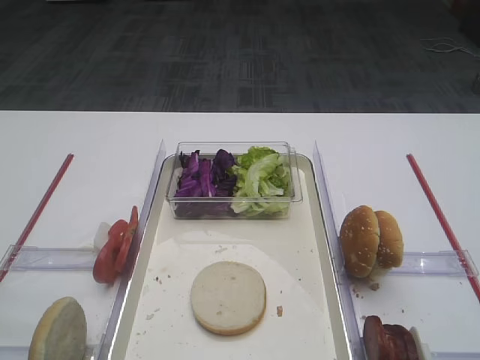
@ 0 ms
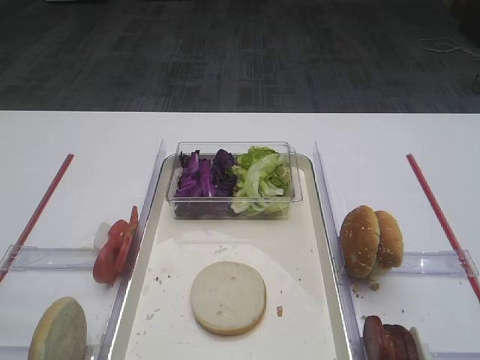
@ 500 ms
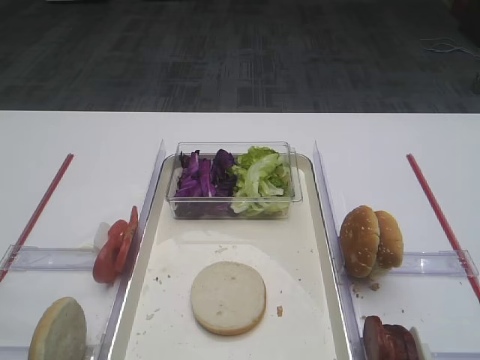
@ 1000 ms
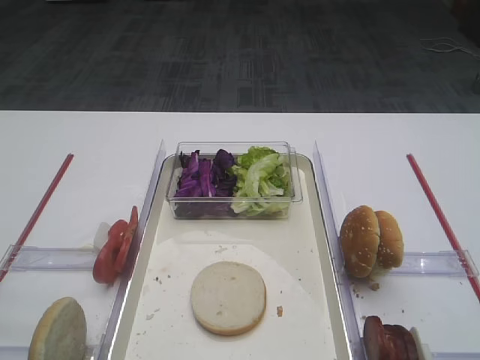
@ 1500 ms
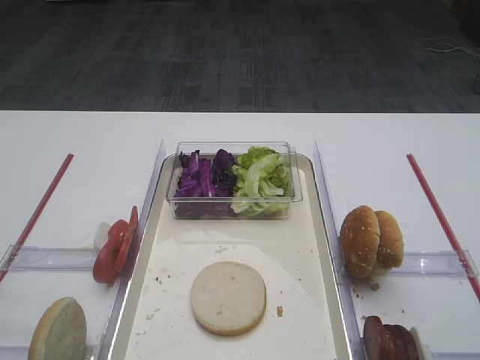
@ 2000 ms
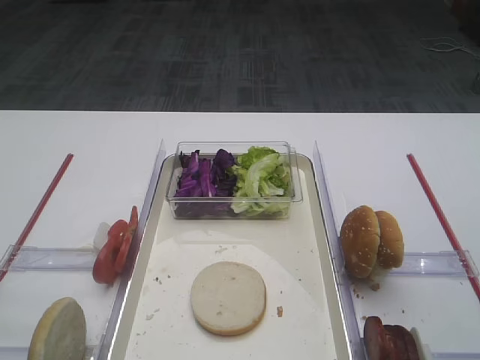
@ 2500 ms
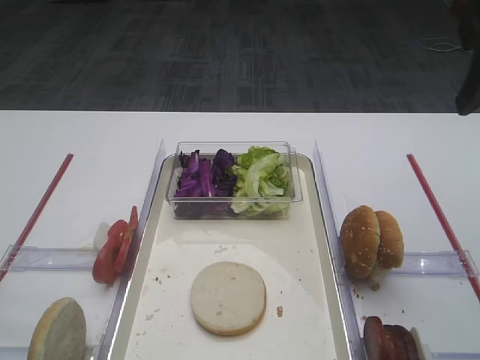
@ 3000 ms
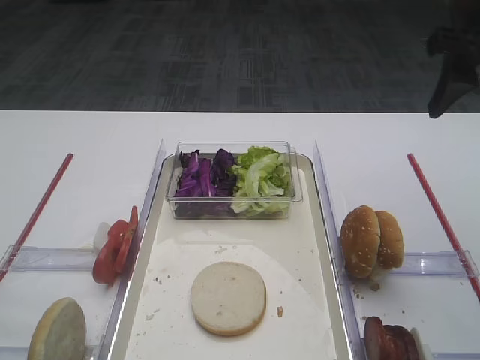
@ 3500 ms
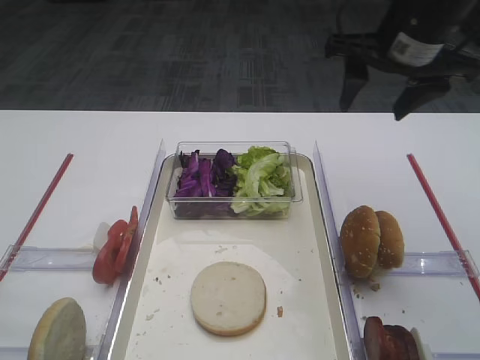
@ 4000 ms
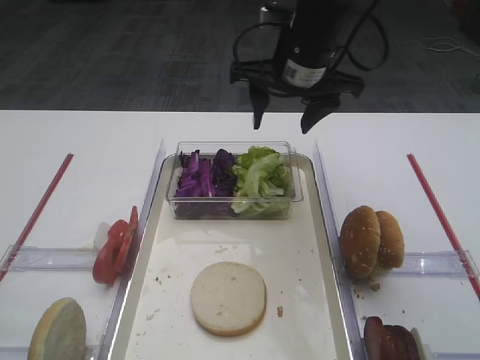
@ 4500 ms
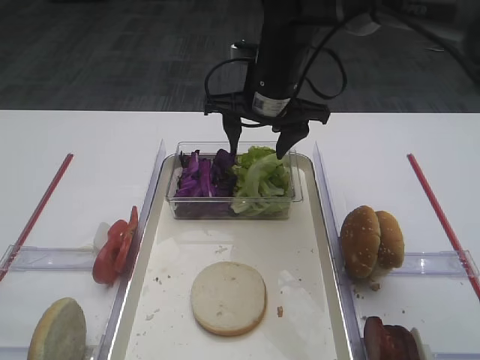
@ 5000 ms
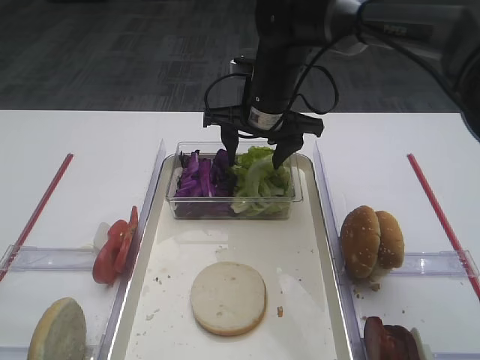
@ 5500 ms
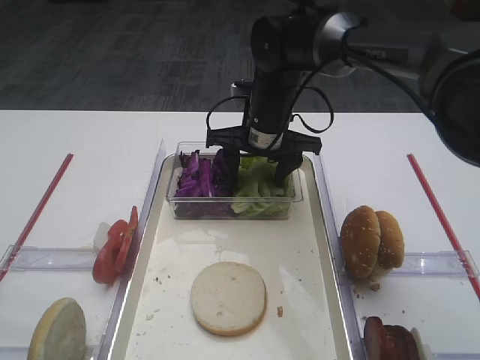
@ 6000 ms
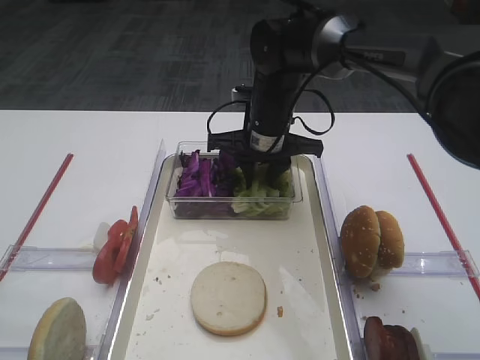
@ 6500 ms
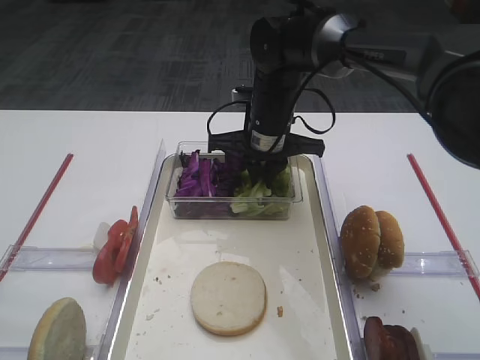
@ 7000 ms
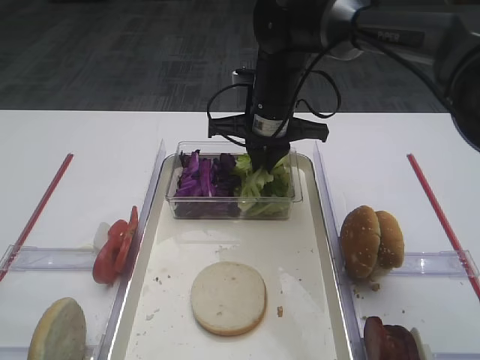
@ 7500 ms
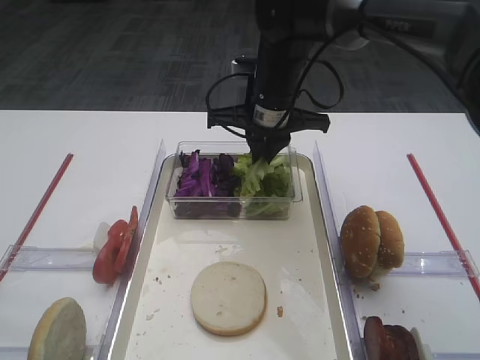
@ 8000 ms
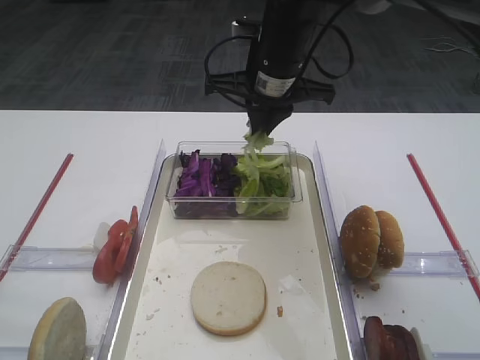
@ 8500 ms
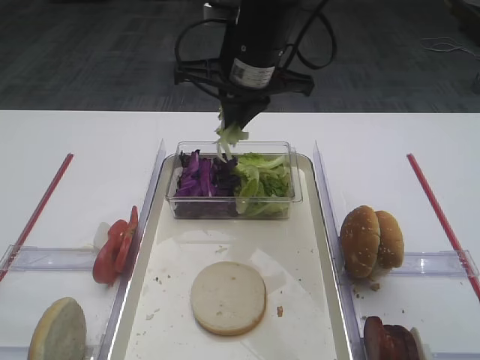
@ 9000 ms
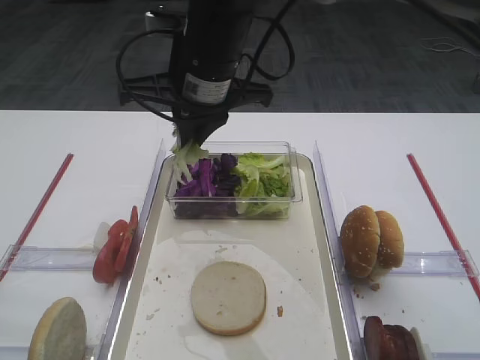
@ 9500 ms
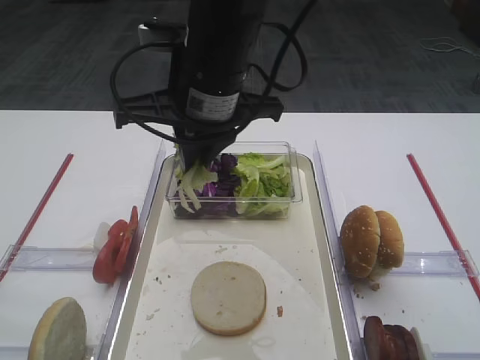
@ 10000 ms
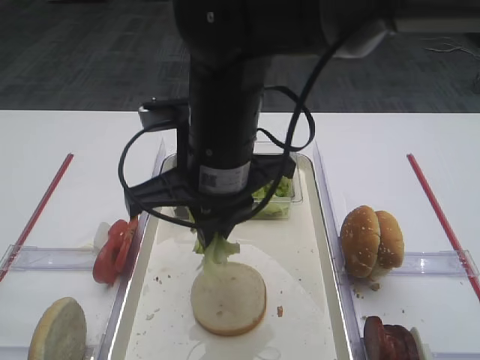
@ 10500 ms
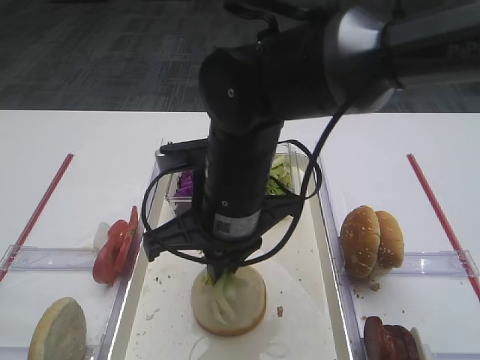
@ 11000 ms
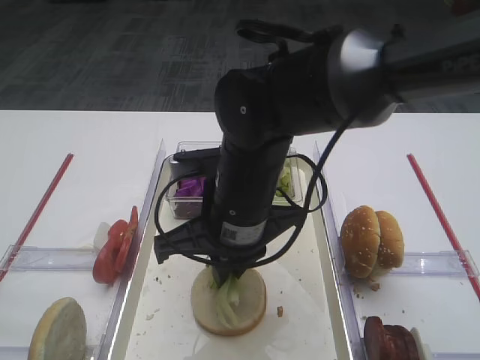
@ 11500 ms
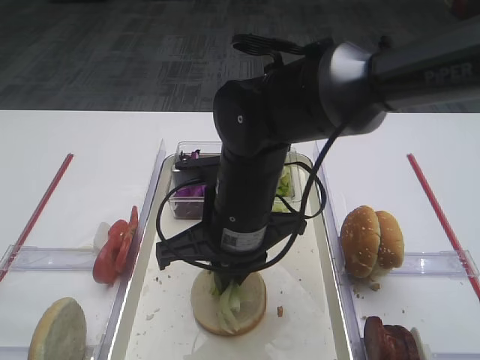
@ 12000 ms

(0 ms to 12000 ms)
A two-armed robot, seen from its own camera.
Step, 0 ms - 8500 ms: Pick up the lettuce leaf with the right gripper.
2000 ms - 4000 ms: The right gripper travels forward by some 30 cm.
4000 ms - 6000 ms: The right gripper goes roughly 20 cm to the left, downward and forward.
6000 ms - 8000 ms: The right gripper closes up.
8000 ms - 10000 ms: The right gripper moves backward, upward and to the left, some 15 cm.
10000 ms - 12000 ms: The right gripper heads downward, covering some 10 cm.

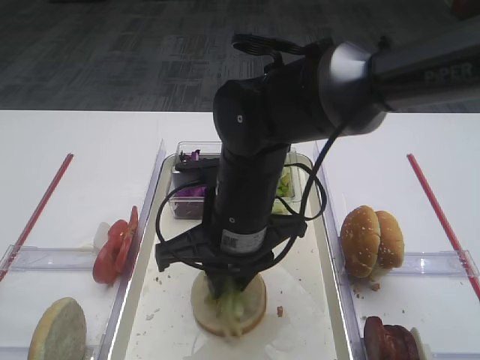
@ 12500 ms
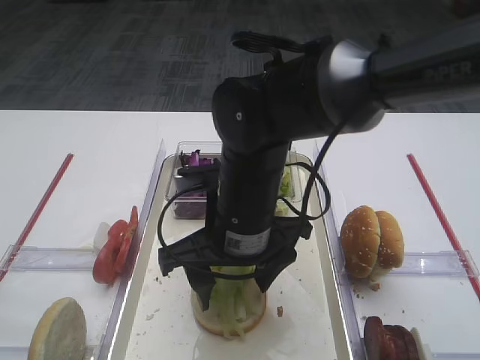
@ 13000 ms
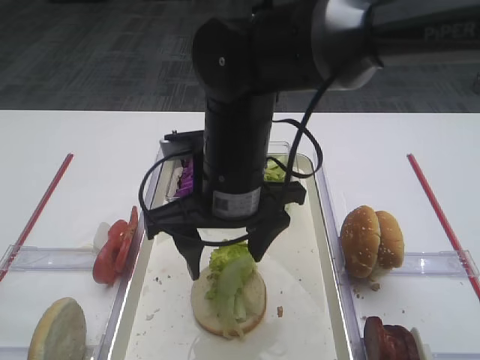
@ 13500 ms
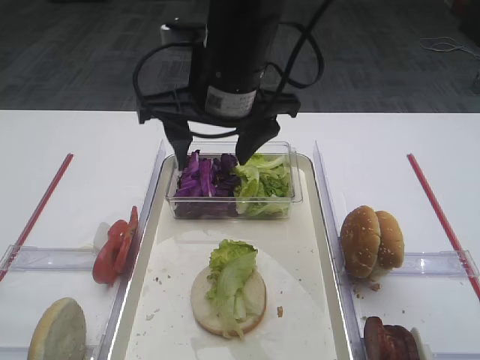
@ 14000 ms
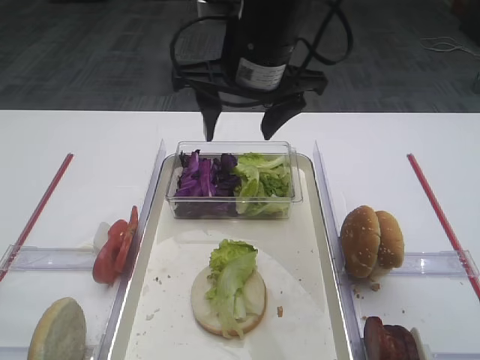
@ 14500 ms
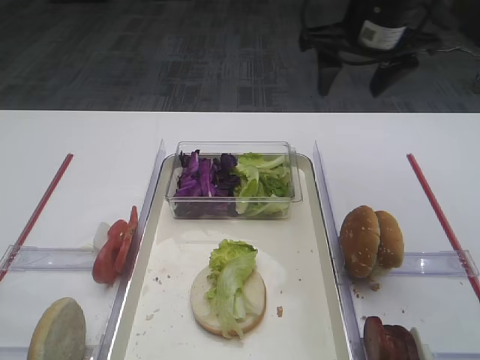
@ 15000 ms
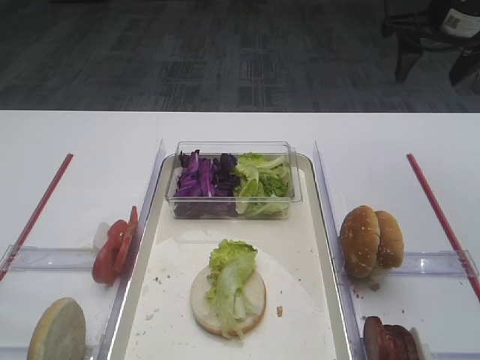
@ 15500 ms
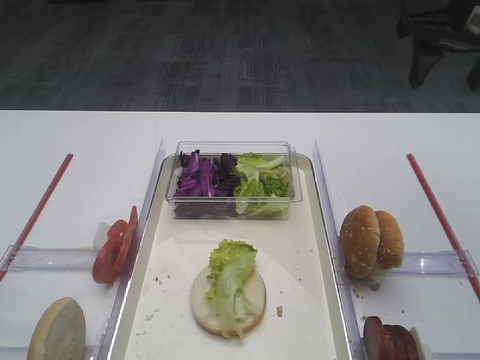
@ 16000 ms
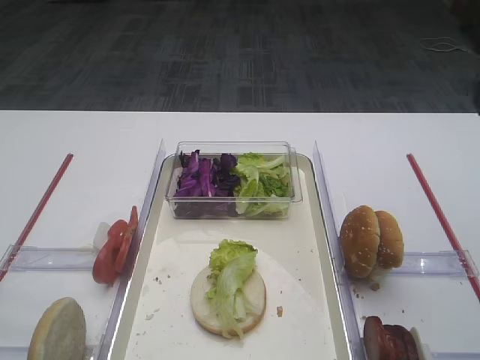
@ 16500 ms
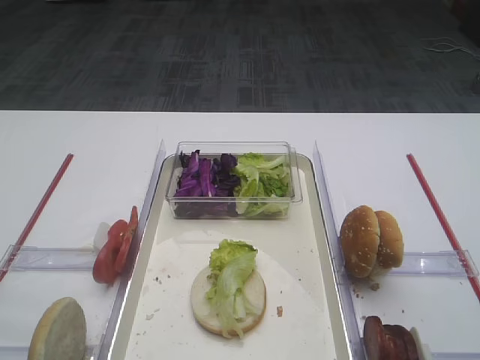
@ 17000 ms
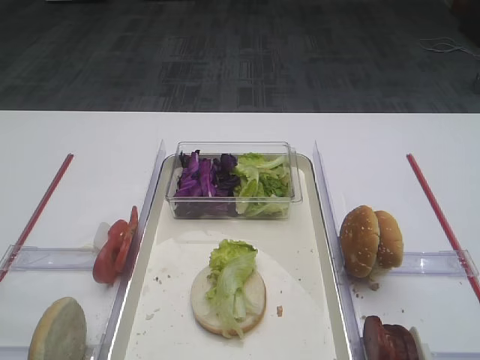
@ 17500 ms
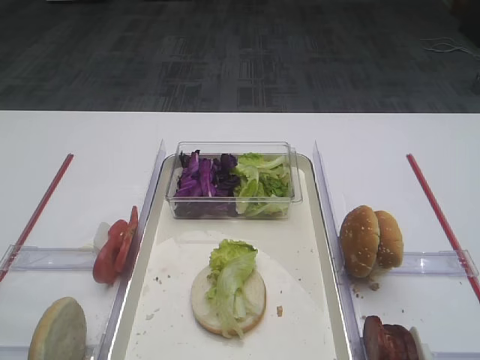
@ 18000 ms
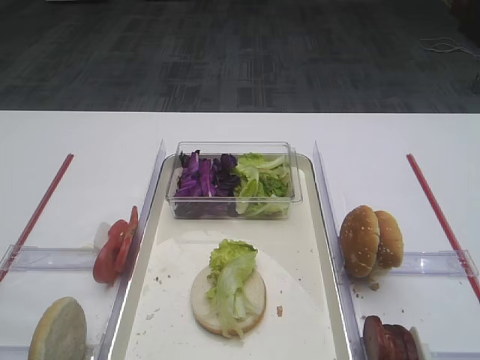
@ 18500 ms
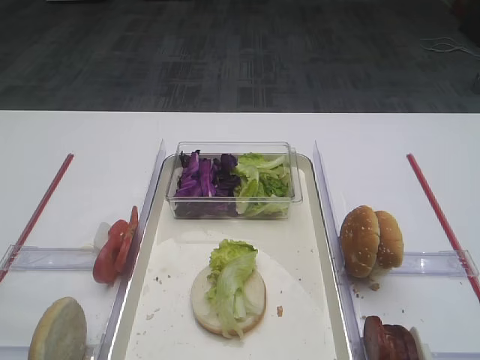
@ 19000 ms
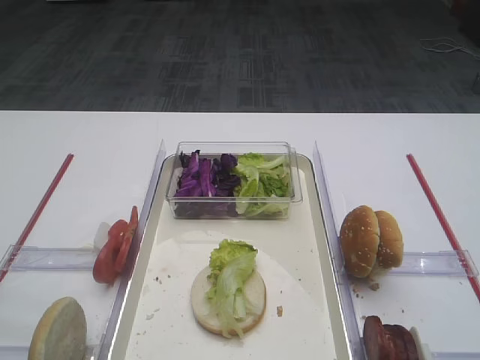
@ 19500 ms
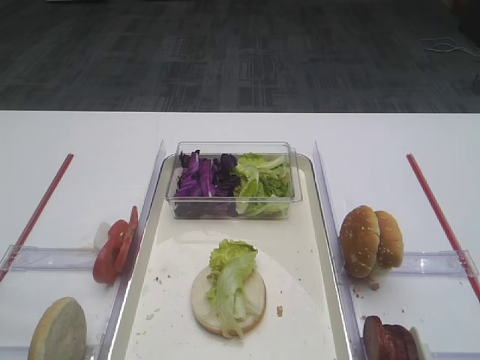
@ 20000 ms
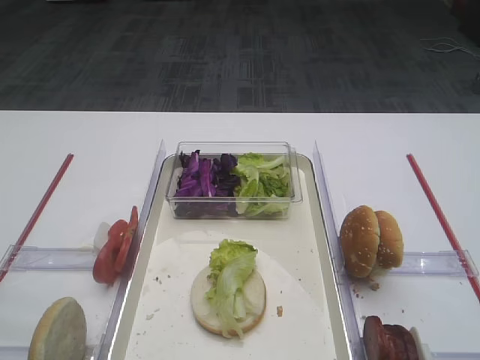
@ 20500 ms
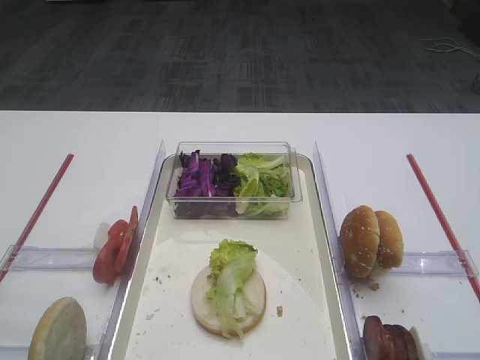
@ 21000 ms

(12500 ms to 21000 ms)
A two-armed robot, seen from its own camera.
12500 ms - 14500 ms: The right gripper shifts about 15 cm upward and forward, and opens up.
14500 ms - 16500 ms: The right gripper shifts some 25 cm to the right.
19000 ms - 21000 ms: Both grippers stay put.

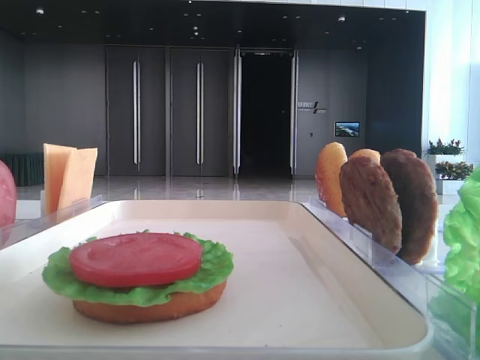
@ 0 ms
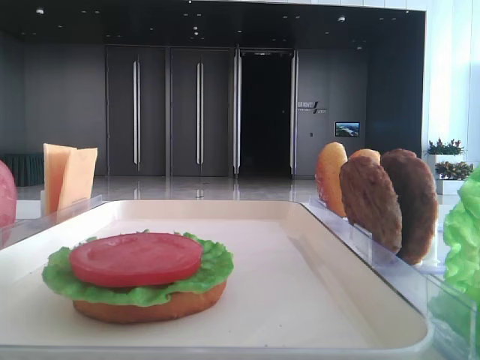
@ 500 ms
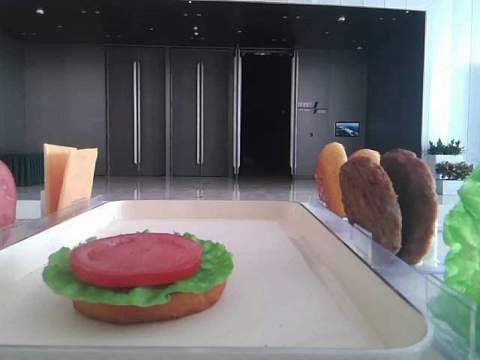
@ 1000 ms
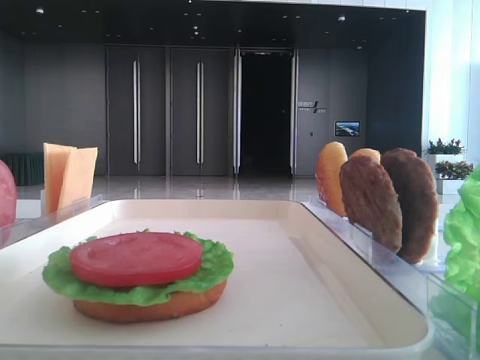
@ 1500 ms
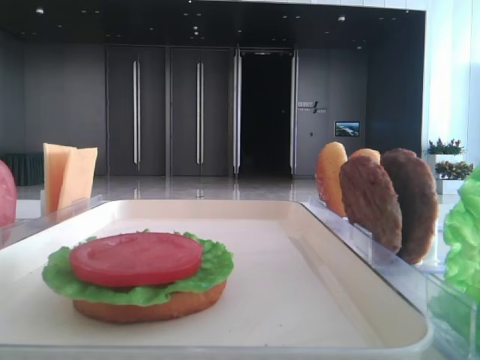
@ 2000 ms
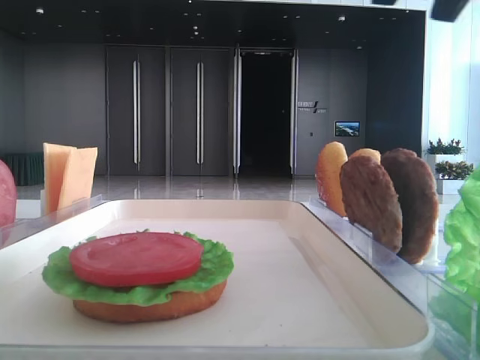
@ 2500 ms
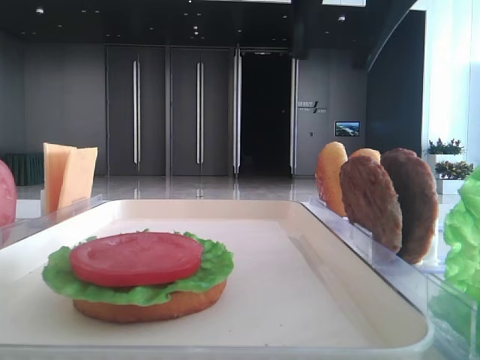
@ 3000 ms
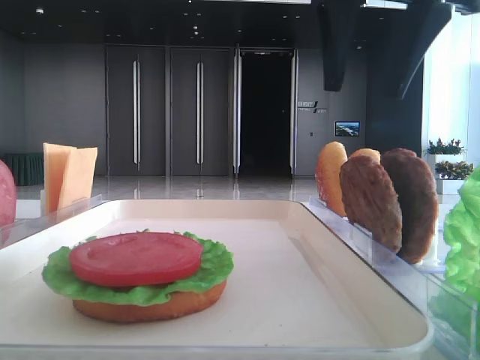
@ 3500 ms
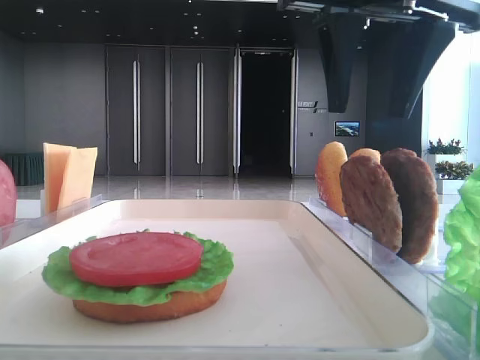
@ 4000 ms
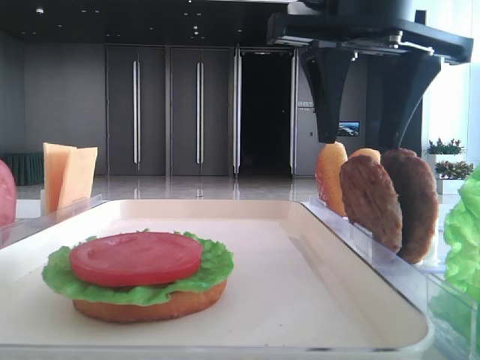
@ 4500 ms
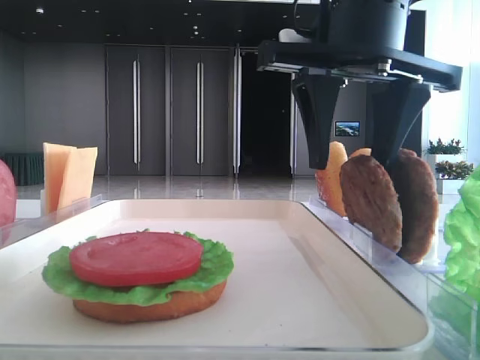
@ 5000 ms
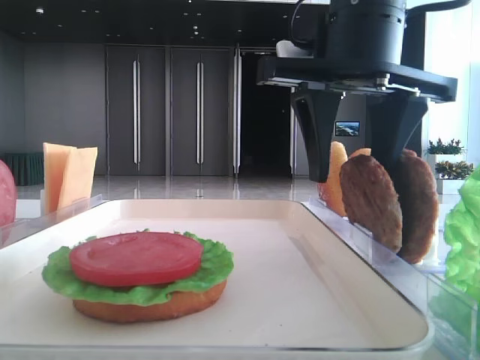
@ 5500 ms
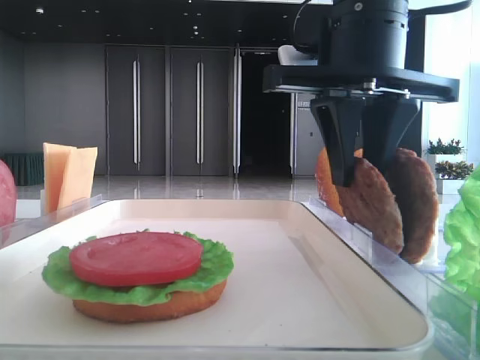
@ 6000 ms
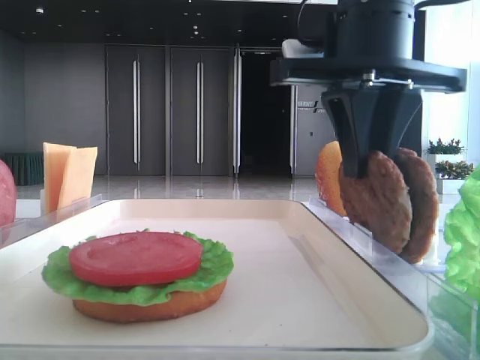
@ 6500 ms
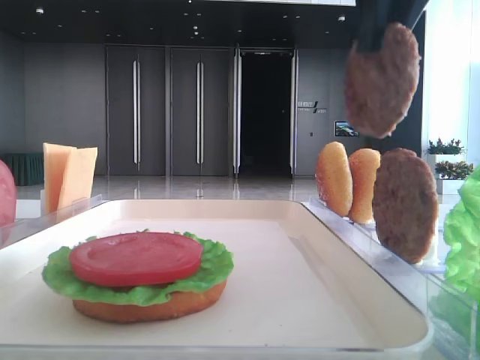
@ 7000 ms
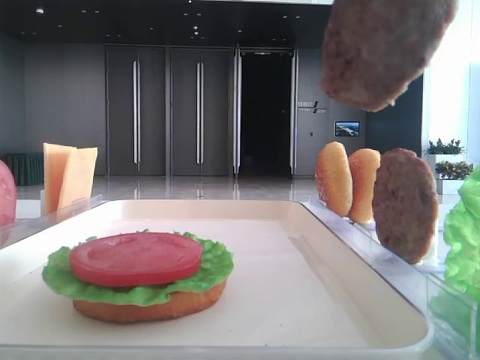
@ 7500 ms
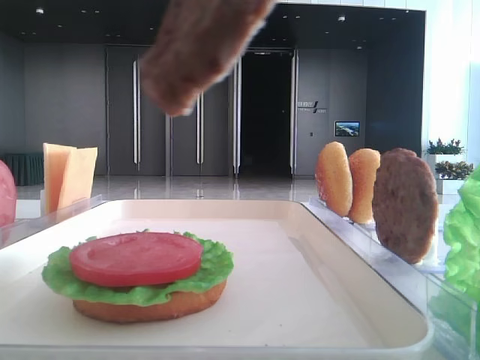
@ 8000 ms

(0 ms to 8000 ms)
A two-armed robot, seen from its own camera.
Step, 0 ms - 6000 ms: Grab the patty with the right hand.
2000 ms - 4000 ms: The right gripper travels to the left and forward by roughly 20 cm.
4000 ms - 6000 ms: The right gripper goes about 5 cm downward, and closes.
6000 ms - 8000 ms: The right gripper moves backward and upward, some 20 cm, and closes up.
